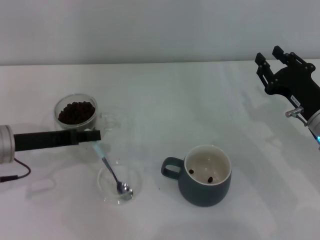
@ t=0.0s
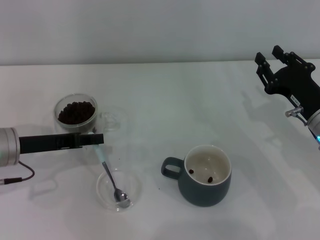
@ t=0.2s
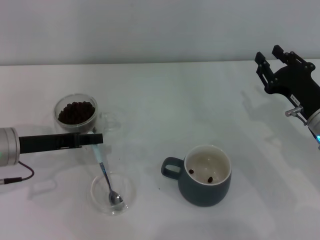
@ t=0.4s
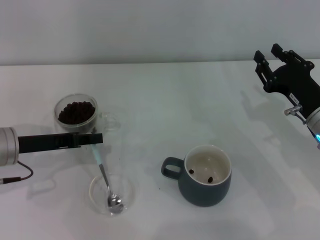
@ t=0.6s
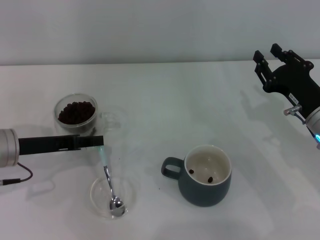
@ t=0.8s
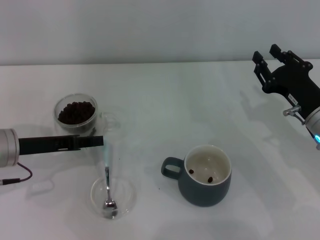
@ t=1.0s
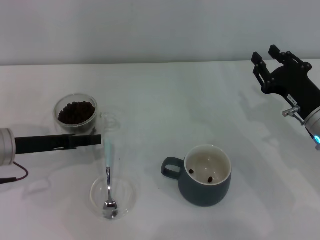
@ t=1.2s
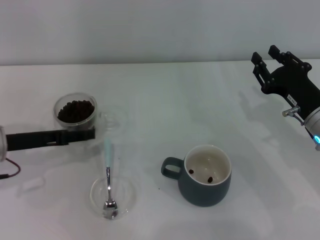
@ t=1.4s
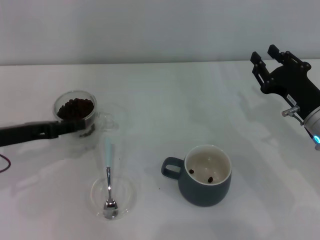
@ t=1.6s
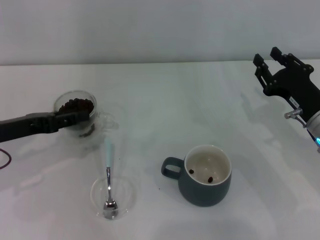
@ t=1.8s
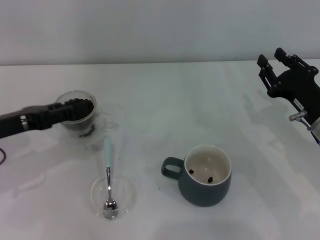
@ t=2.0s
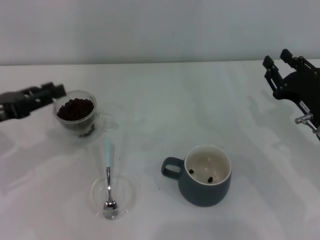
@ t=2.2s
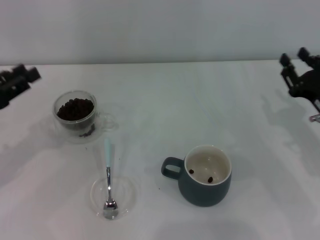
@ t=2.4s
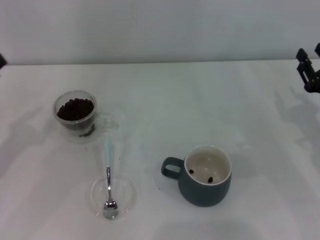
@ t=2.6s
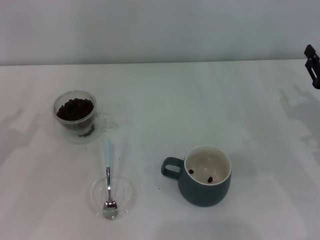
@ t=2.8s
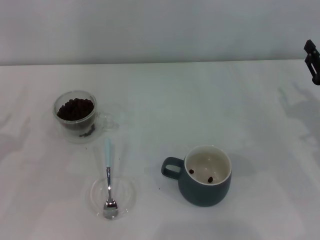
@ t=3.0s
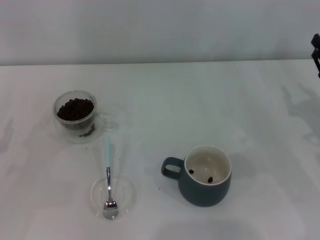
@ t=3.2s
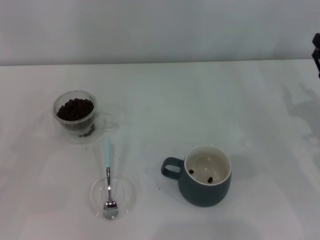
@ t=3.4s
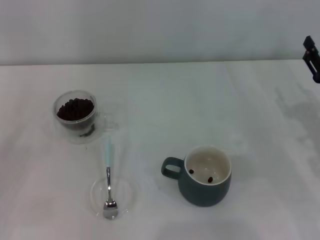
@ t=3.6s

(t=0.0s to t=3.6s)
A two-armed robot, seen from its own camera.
Task of the whole recording: Use a blue spoon to take out the coffee beans from the glass and pour them into the gray cup.
t=0.0s - t=1.8s: The left gripper opens.
t=1.8s - t=3.6s: The right gripper ends up about 5 cm from where it was; the left gripper is displaced to the left and backward by some 15 cm.
